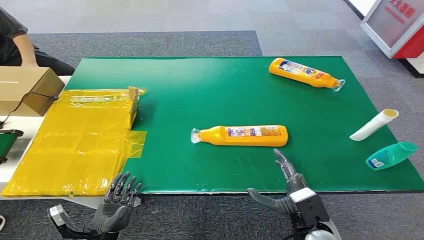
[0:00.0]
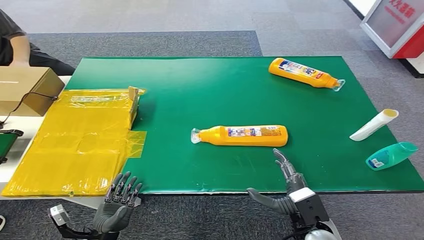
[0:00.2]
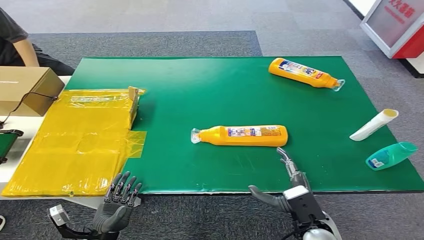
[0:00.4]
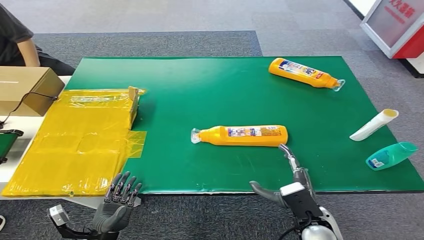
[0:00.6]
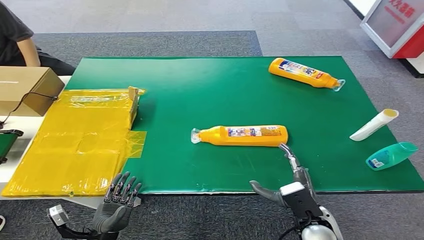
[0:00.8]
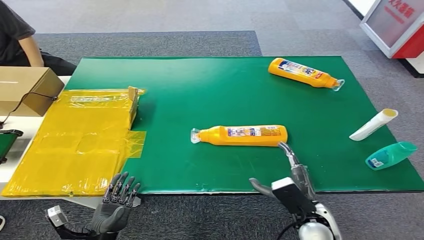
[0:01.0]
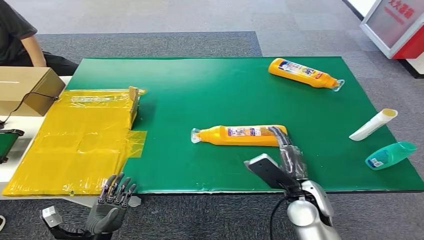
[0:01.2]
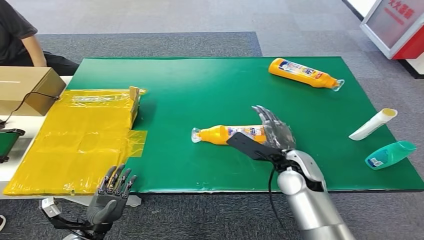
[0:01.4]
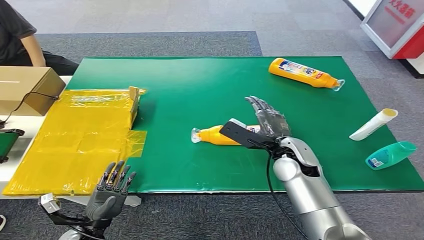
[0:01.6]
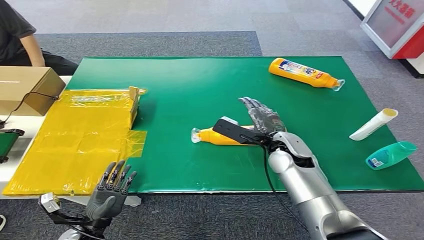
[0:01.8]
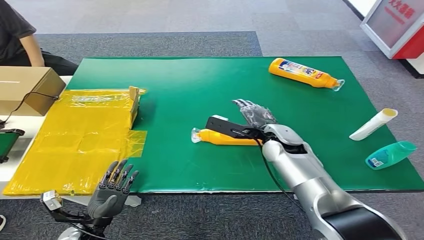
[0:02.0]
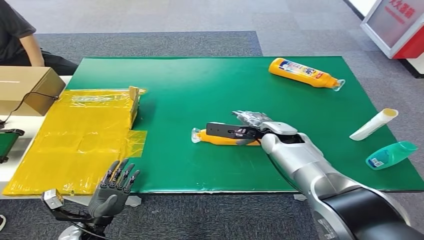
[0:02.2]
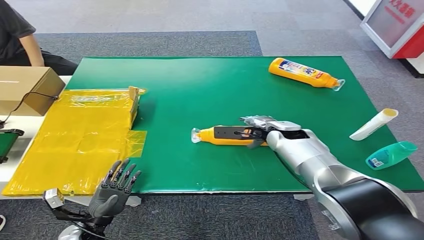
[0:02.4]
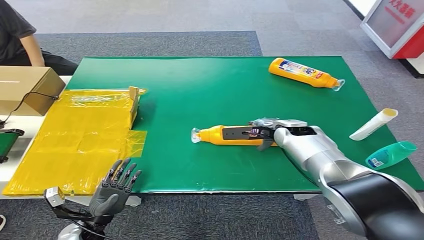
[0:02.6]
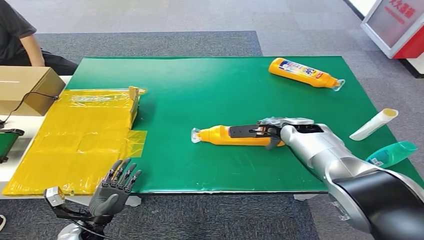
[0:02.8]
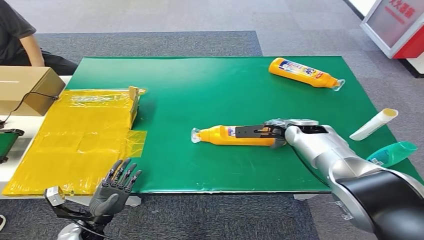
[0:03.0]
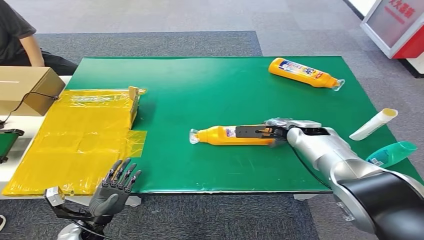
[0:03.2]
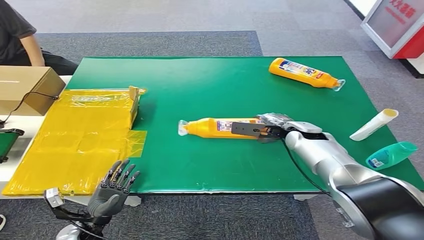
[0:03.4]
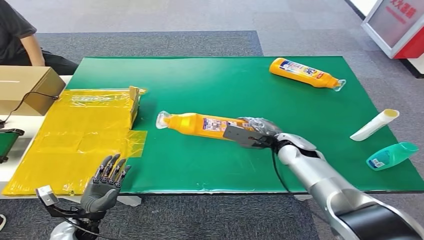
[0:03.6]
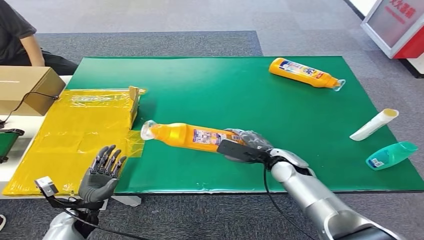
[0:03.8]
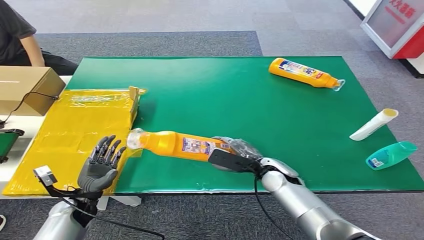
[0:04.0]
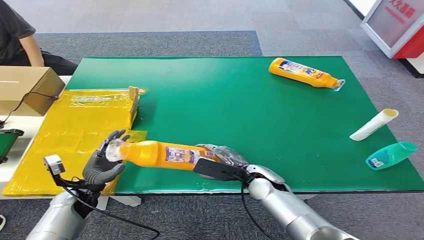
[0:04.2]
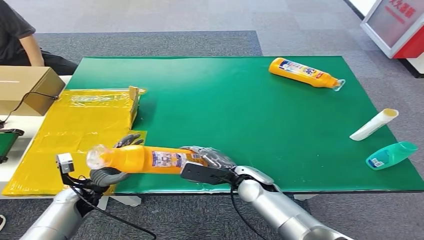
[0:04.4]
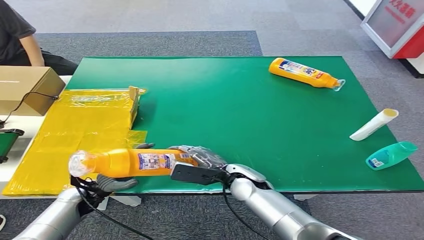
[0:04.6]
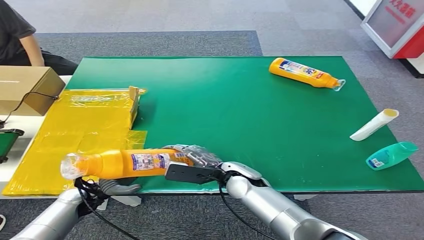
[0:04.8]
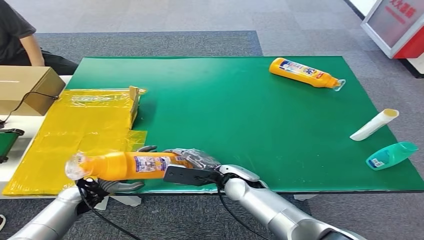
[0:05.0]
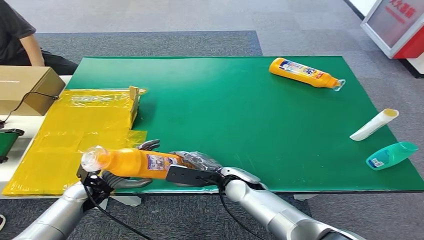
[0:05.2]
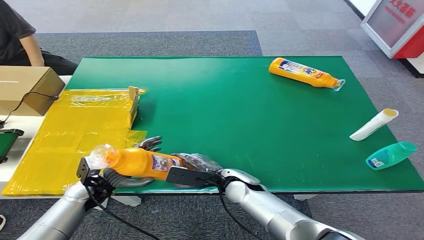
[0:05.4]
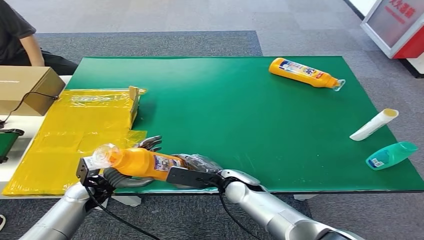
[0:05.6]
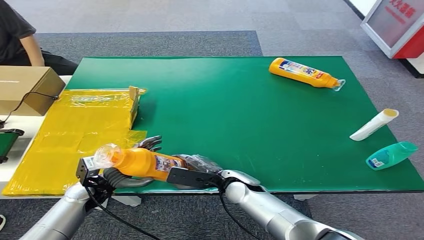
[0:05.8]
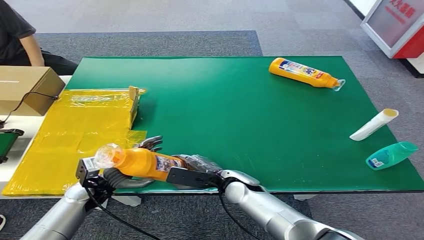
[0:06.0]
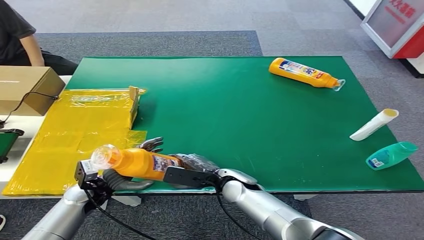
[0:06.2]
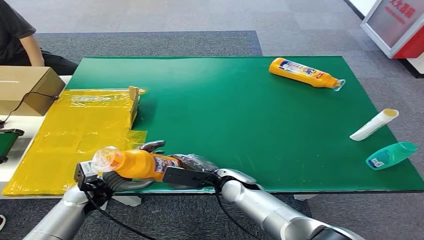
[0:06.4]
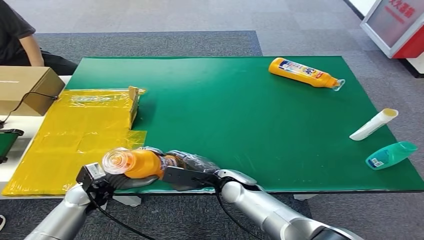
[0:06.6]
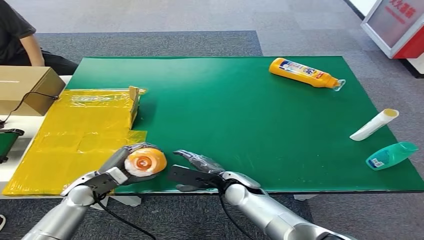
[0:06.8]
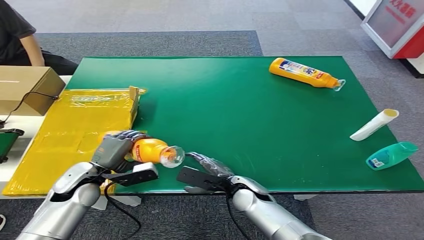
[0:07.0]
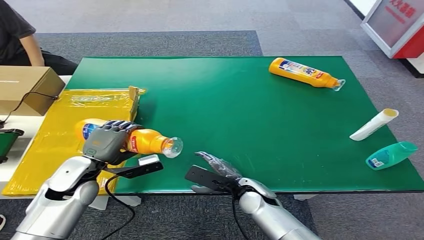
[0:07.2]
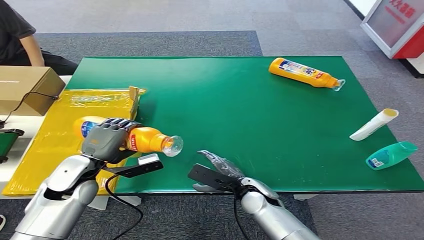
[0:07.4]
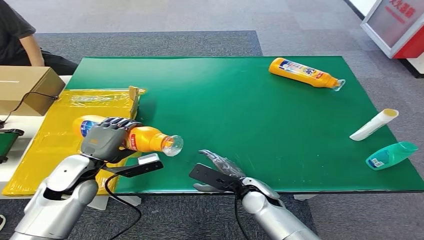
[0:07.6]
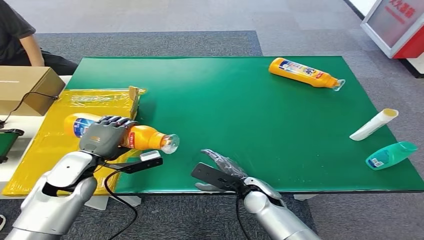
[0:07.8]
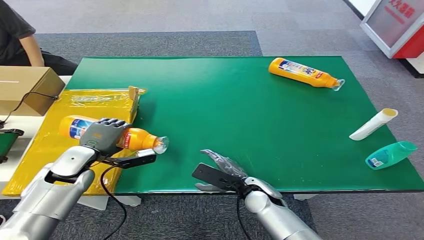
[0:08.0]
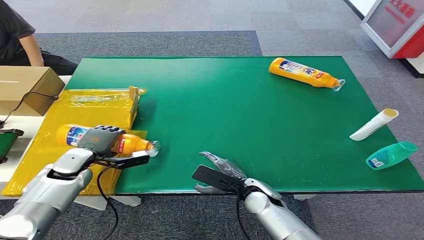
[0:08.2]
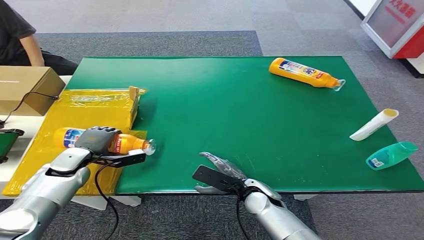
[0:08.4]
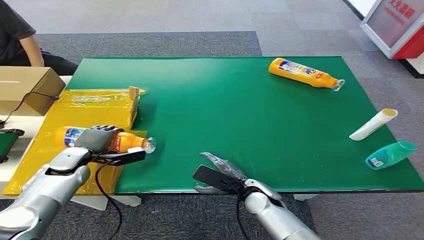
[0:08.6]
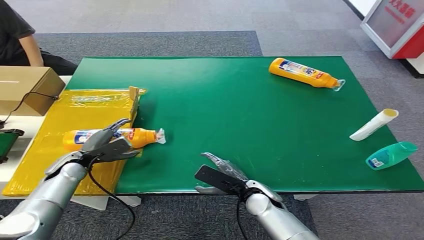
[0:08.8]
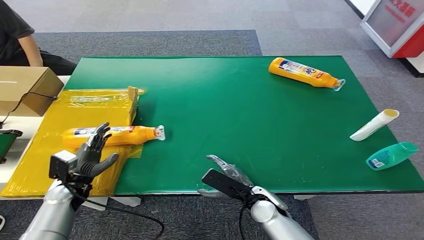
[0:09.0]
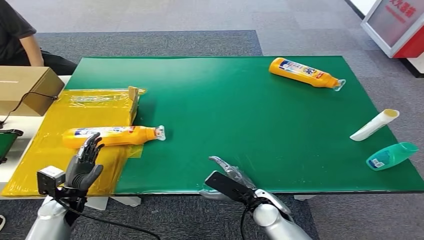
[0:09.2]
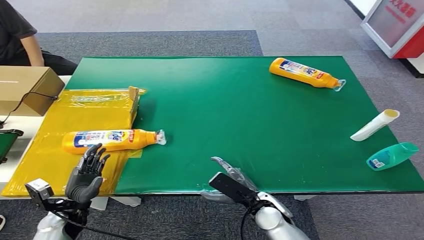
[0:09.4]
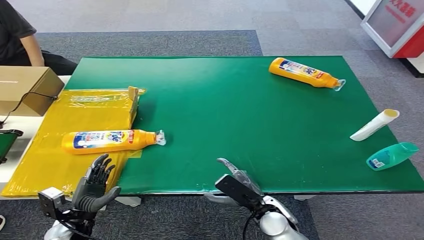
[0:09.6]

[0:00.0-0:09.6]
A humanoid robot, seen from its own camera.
Step, 0:00.0 to 0:03.6: Pick up the bottle from the table.
Step, 0:03.8 to 0:09.6: Turn the bottle to the front side.
0:01.6 to 0:03.2: The right hand is displaced forward and to the right by roughly 10 cm.
0:04.8 to 0:06.4: The left hand changes place by approximately 5 cm.
0:06.4 to 0:08.0: The right hand travels to the right by approximately 5 cm. Meanwhile the left hand shifts some 10 cm upward and forward.
0:08.0 to 0:09.6: The left hand moves backward and downward, roughly 20 cm. The right hand shifts some 5 cm backward.
